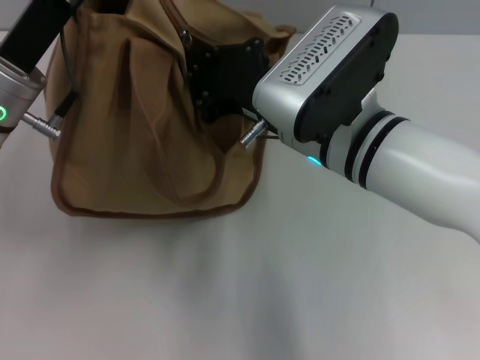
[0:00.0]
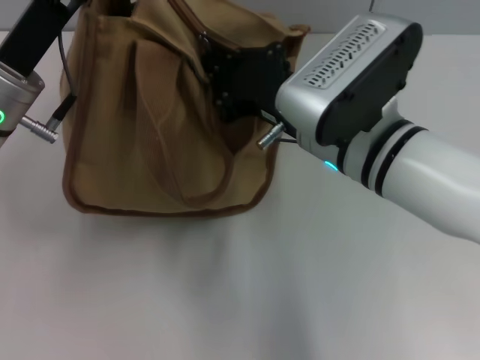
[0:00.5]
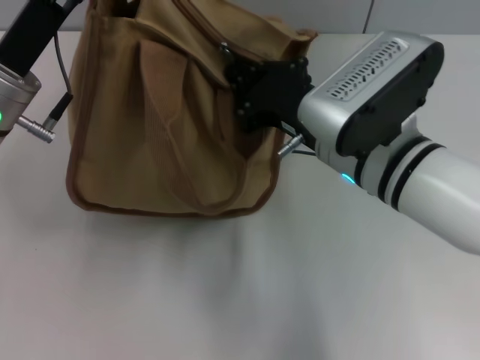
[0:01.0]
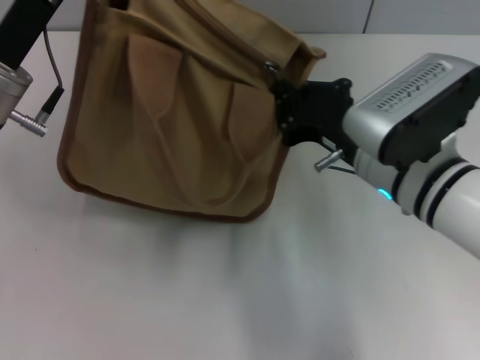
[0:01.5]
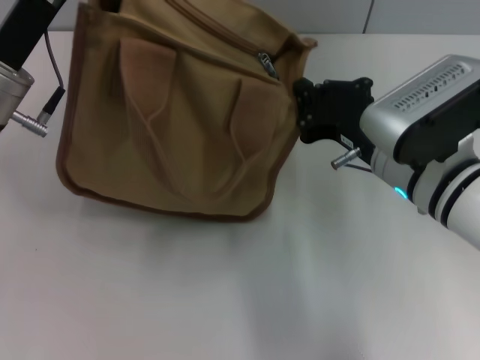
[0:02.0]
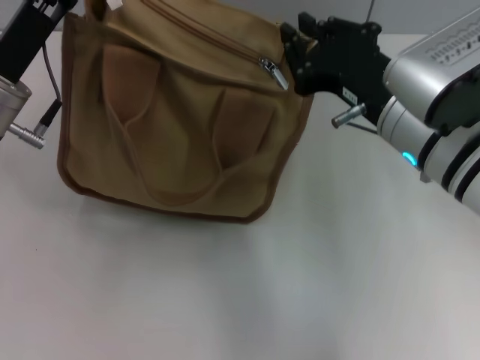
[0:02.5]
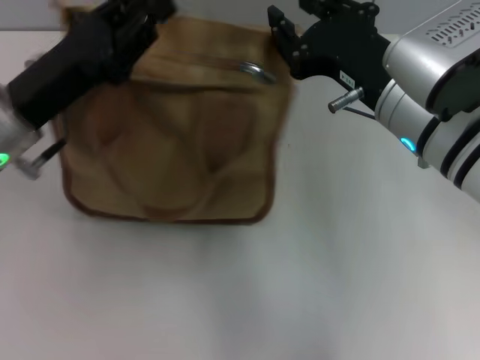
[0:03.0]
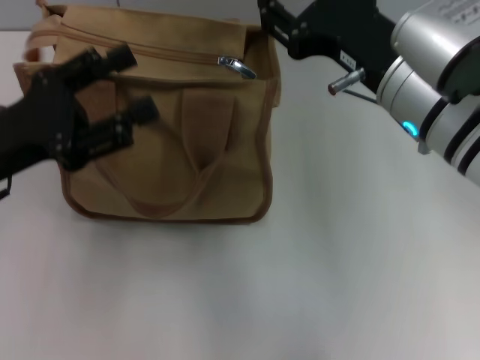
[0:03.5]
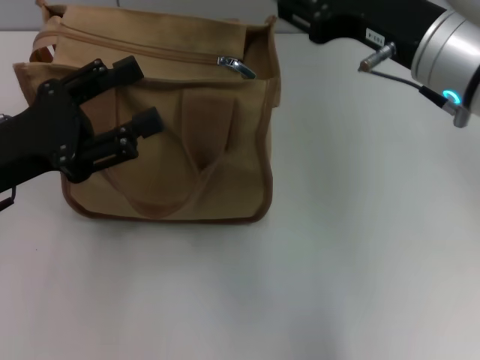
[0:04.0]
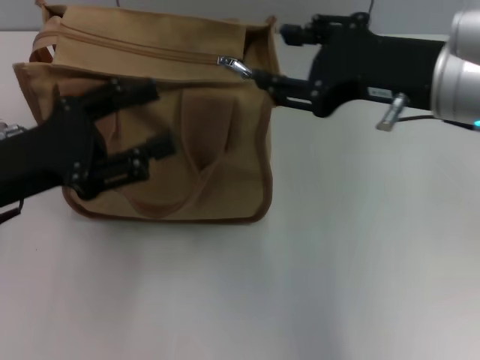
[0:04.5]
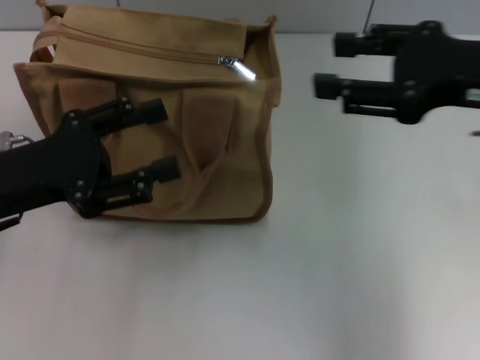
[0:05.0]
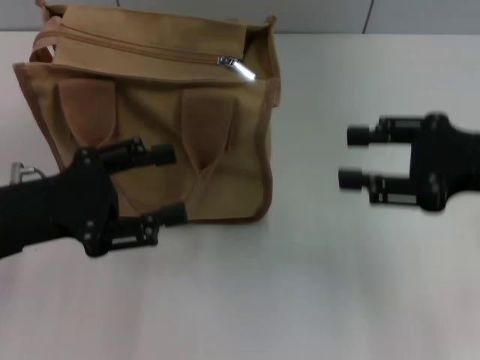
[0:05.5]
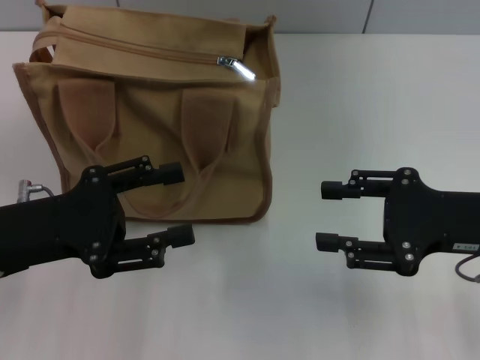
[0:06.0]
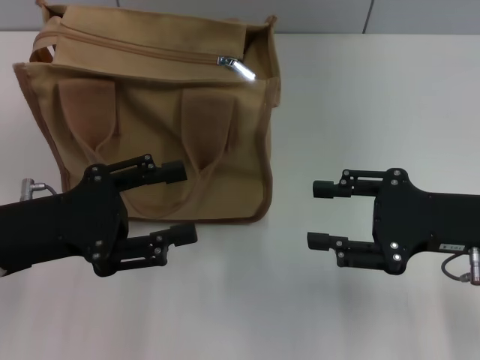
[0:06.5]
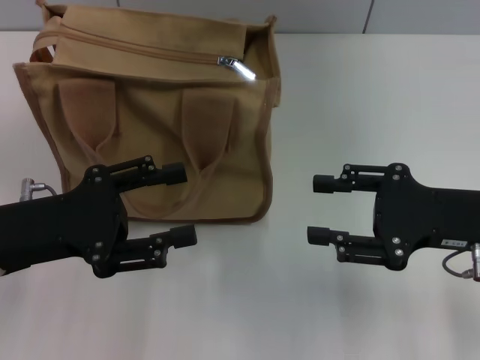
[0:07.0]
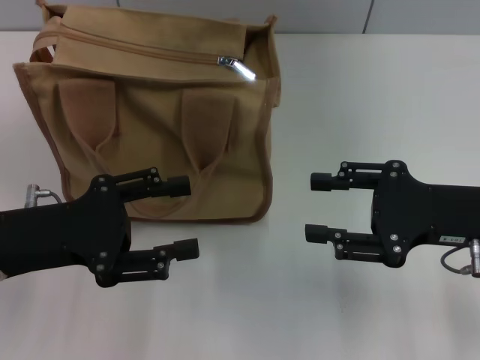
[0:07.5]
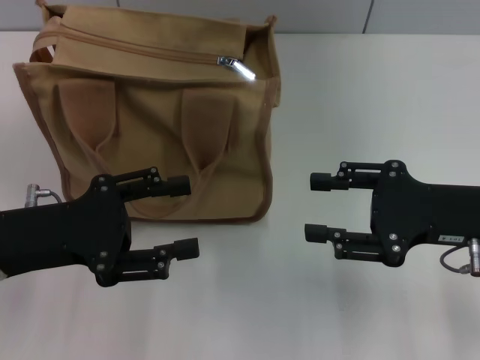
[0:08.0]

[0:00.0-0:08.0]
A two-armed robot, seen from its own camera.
Step, 0:02.0 to 0:03.0: Grab the zipper with your left hand.
0:00.0 to 0:02.0: The right gripper goes approximately 5 cm to the right.
0:02.0 to 0:04.0: The right gripper moves upward, some 10 cm, and opens up. The left gripper is displaced backward by roughly 5 cm, and opens up.
0:04.0 to 0:06.0: The right gripper heads to the right, downward and backward, covering roughly 15 cm.
0:06.0 to 0:08.0: Both grippers stay about where they are.

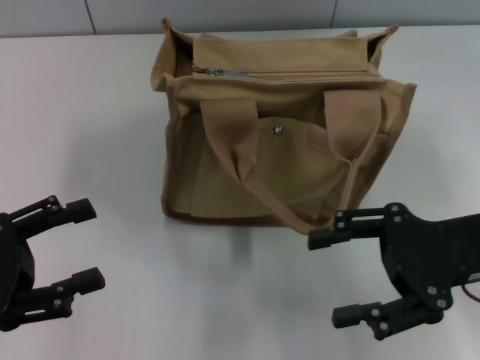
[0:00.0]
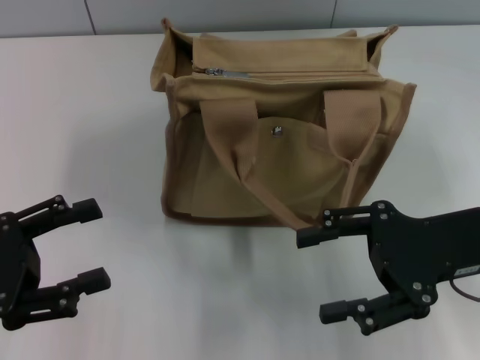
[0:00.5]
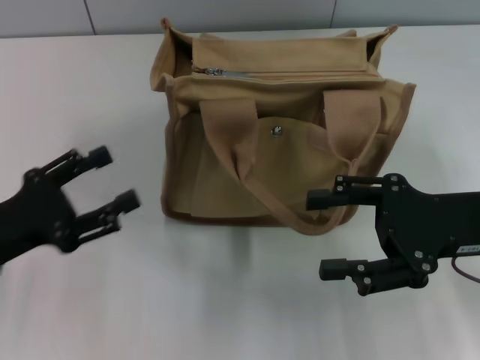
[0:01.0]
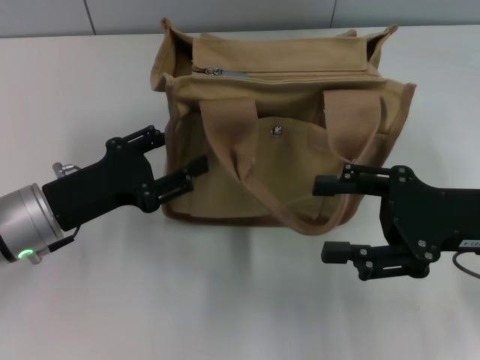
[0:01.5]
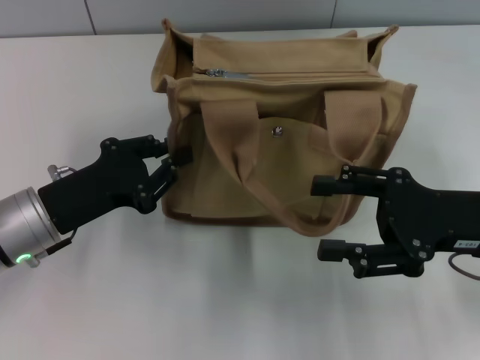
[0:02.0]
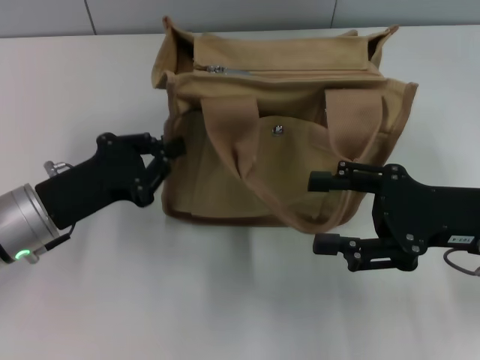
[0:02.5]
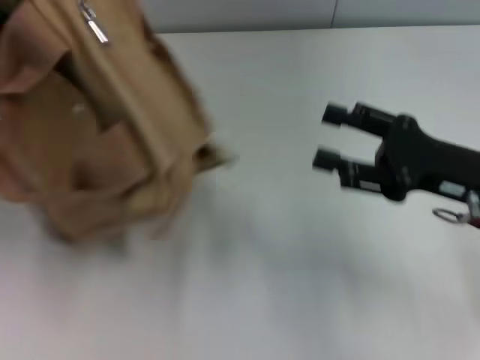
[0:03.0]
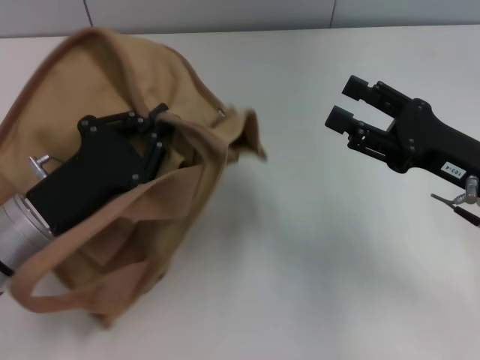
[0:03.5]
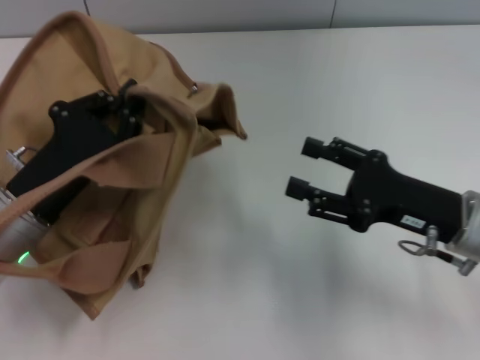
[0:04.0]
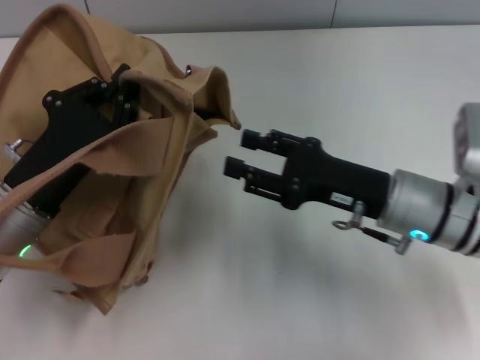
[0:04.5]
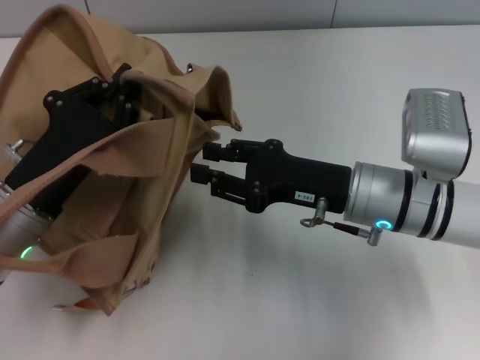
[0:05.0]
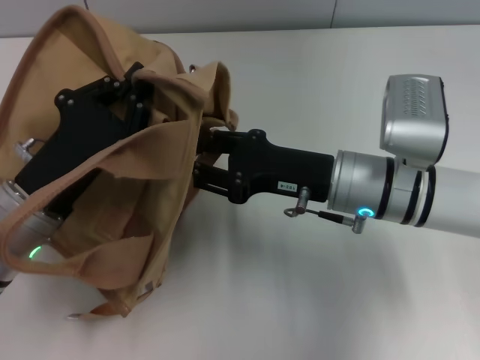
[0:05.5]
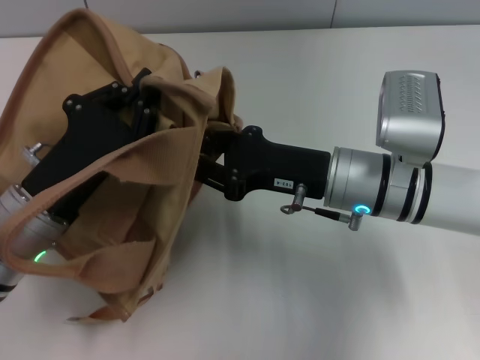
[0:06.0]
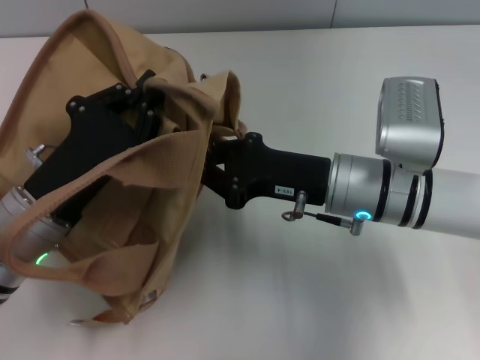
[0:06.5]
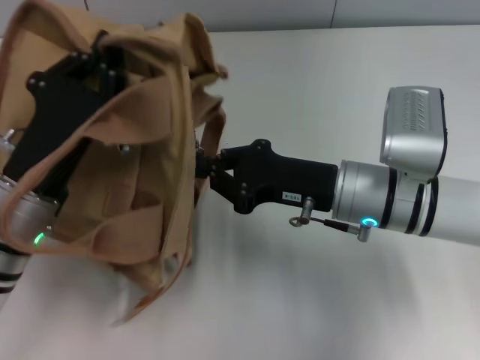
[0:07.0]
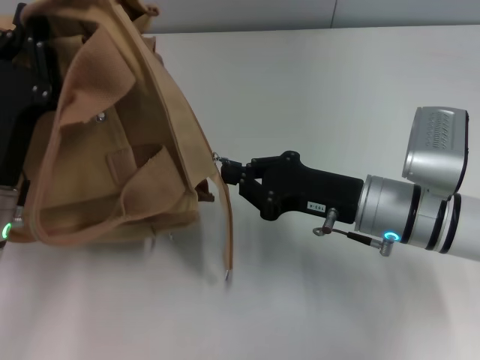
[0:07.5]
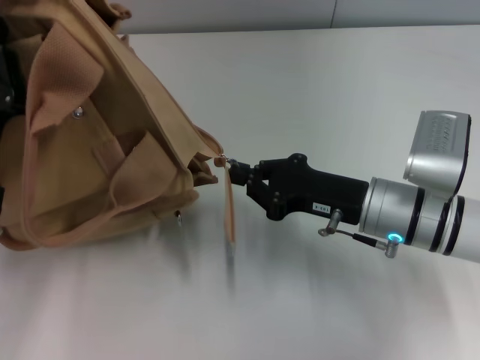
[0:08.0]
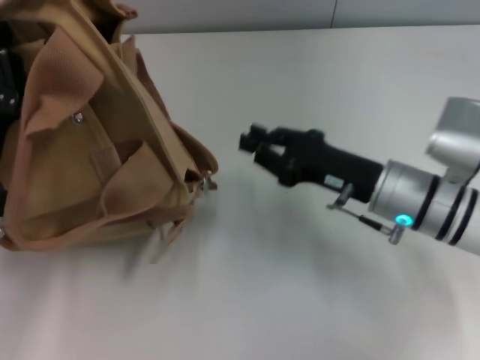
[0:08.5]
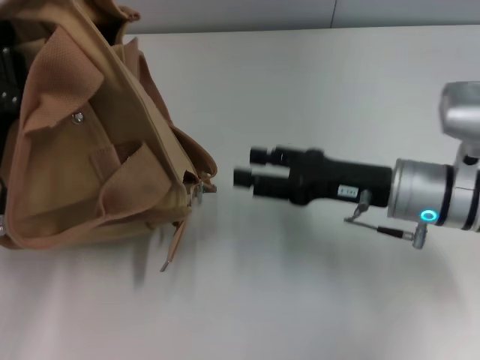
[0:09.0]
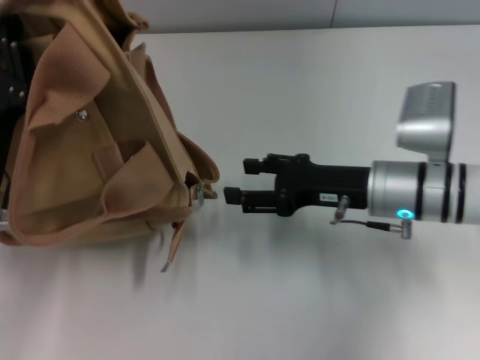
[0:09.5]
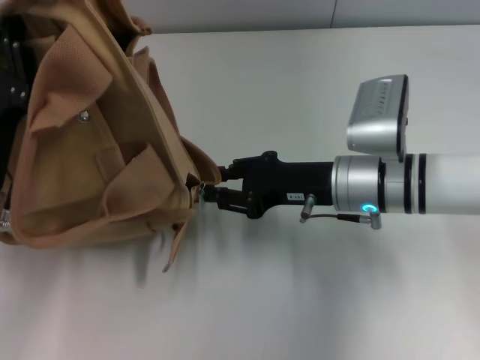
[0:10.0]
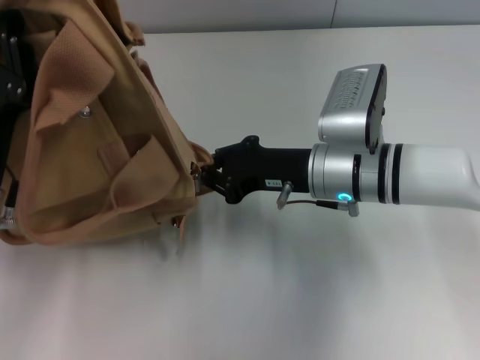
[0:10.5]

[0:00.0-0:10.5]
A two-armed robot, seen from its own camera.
Step, 0:00.0 to 0:08.5: Pull open the zipper with your right hand.
0:00.0 to 0:02.0: The left gripper goes roughly 10 cm to the right and forward, and closes up.
0:02.0 to 0:04.0: The left gripper moves about 10 cm to the left and comes back.
0:04.0 to 0:06.5: The right gripper moves to the left, roughly 10 cm, and closes.
0:06.5 to 0:08.5: The right gripper shifts by about 5 cm.
0:08.5 to 0:10.5: The right gripper moves to the left, about 5 cm, and opens, then closes again.

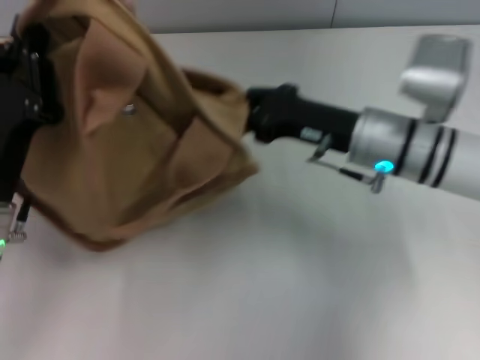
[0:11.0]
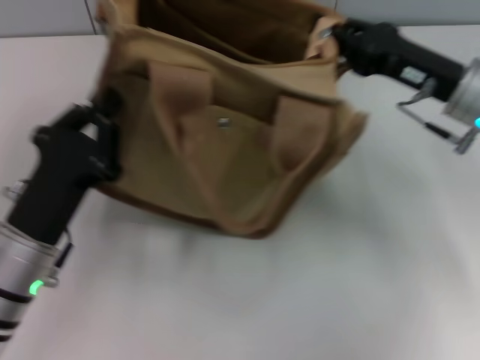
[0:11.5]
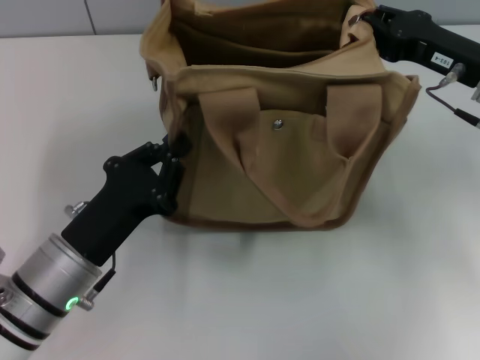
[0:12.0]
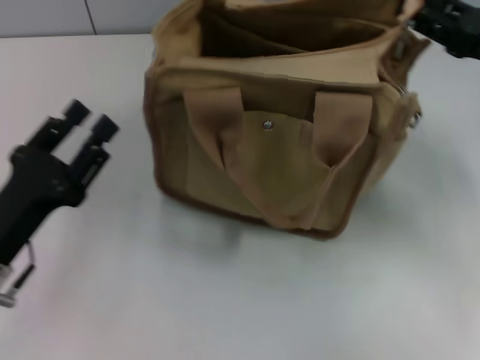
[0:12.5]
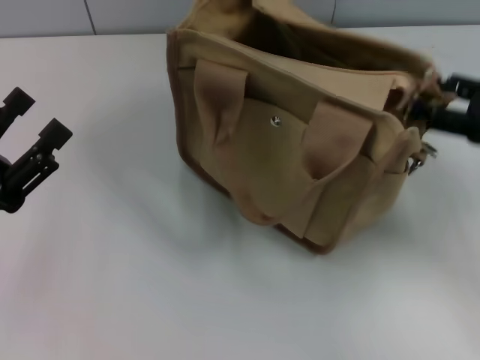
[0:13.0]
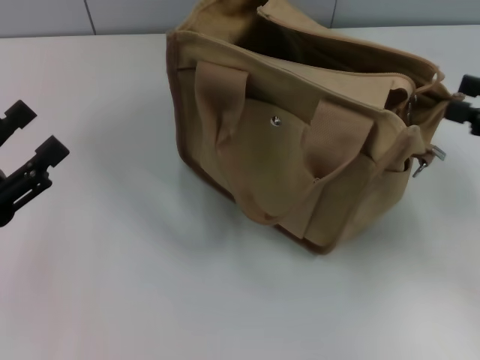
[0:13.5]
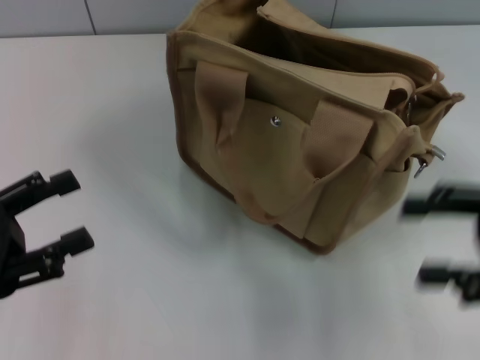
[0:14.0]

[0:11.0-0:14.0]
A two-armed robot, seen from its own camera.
0:11.0 to 0:12.5: The right gripper travels to the right by about 15 cm, and opens up. Meanwhile the left gripper opens up.
0:12.5 to 0:14.0: The left gripper is displaced to the left by roughly 5 cm, and opens its fingers; the right gripper is displaced backward by about 10 cm, and opens its fingers.
